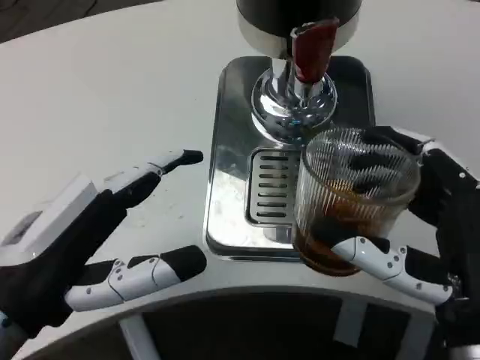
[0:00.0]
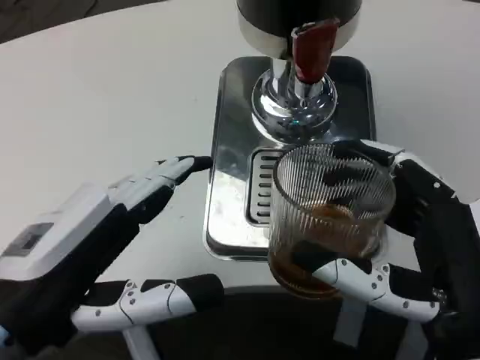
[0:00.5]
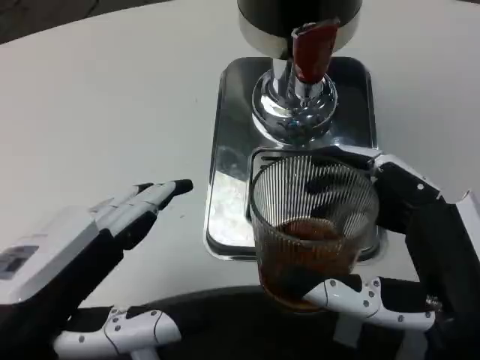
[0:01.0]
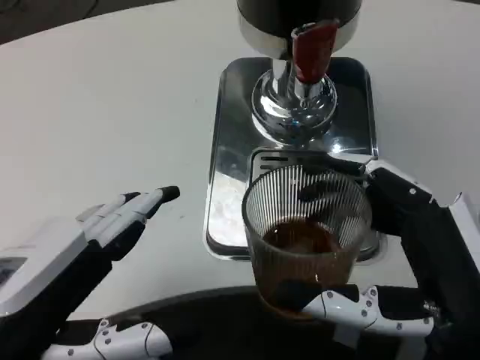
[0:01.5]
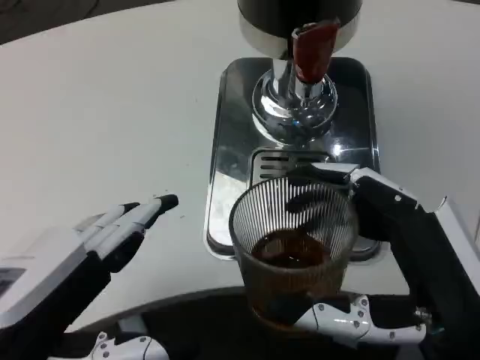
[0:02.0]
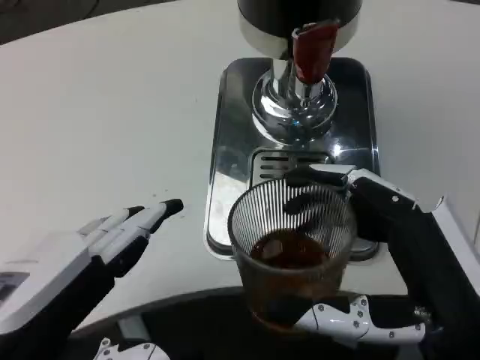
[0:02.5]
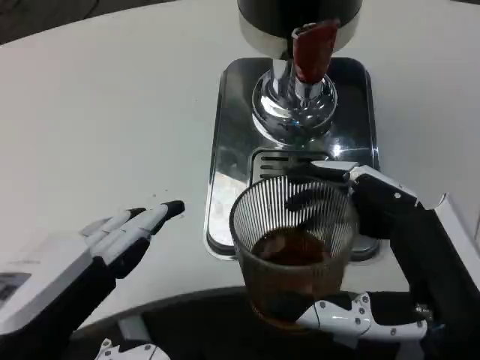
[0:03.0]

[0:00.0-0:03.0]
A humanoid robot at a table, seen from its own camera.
Task of the whole recording: Grasp the cup under the faucet to collect the drink, then remove the cup.
0:01.5 to 0:03.0: Neither hand changes place.

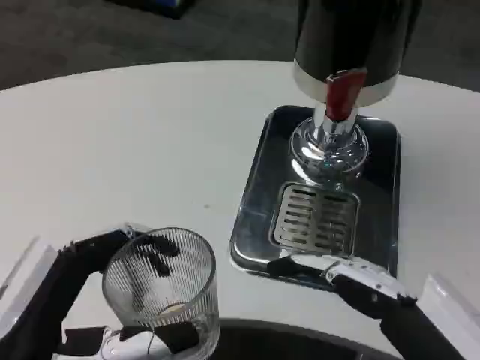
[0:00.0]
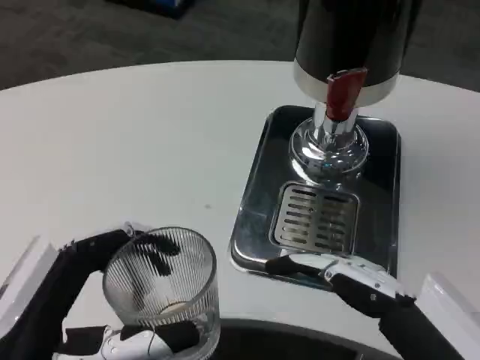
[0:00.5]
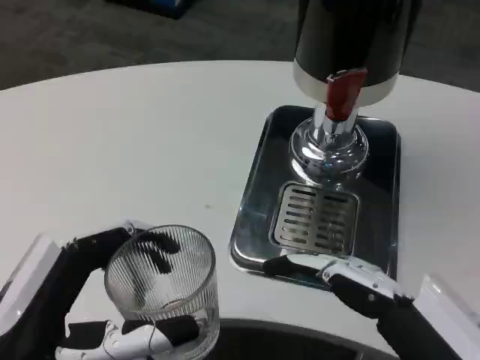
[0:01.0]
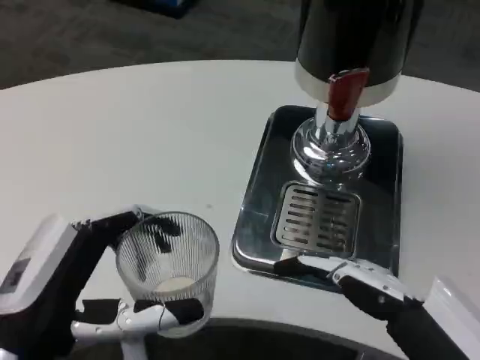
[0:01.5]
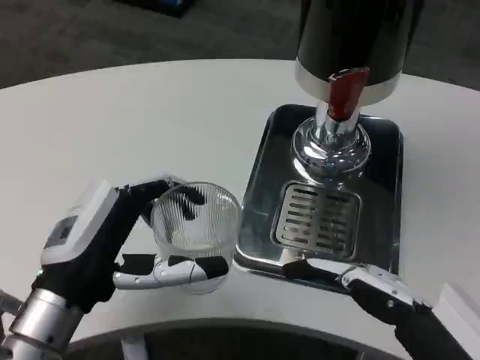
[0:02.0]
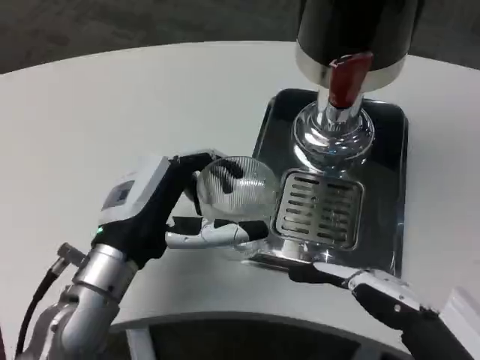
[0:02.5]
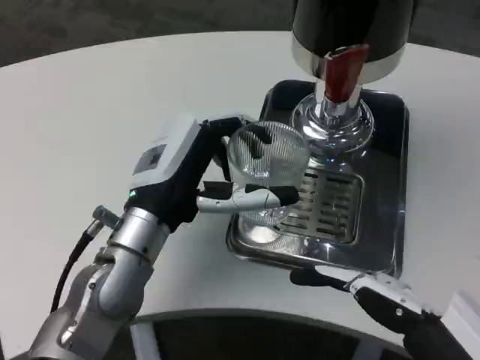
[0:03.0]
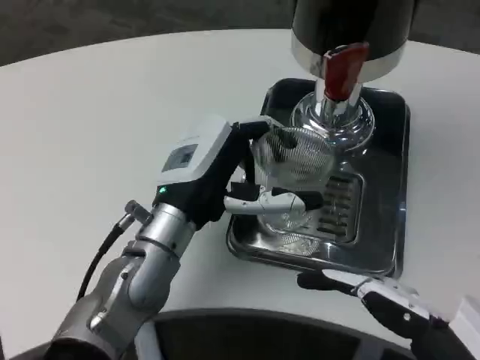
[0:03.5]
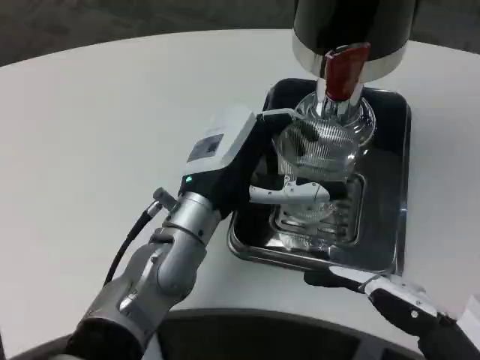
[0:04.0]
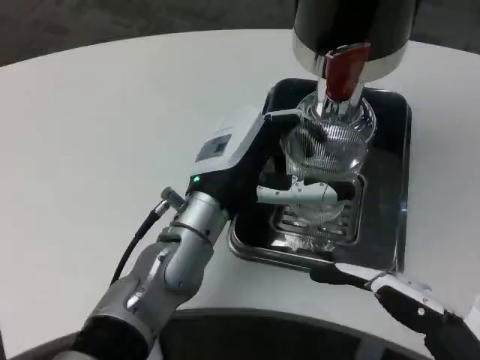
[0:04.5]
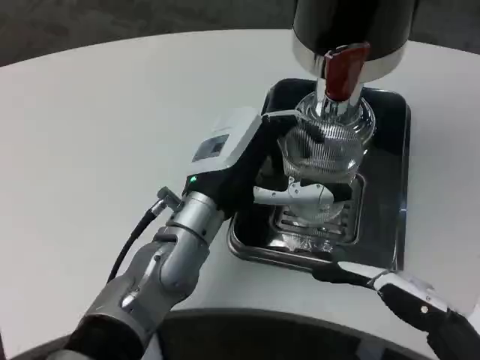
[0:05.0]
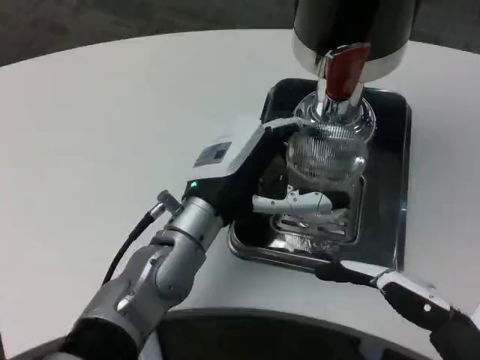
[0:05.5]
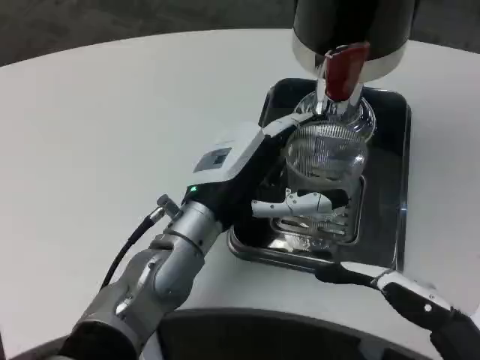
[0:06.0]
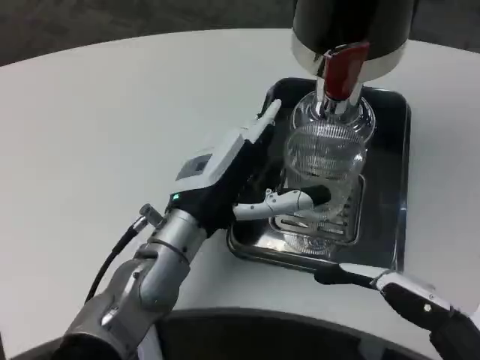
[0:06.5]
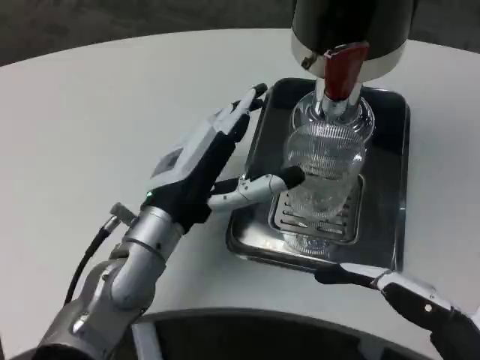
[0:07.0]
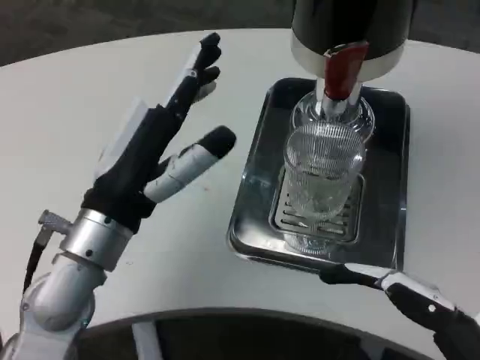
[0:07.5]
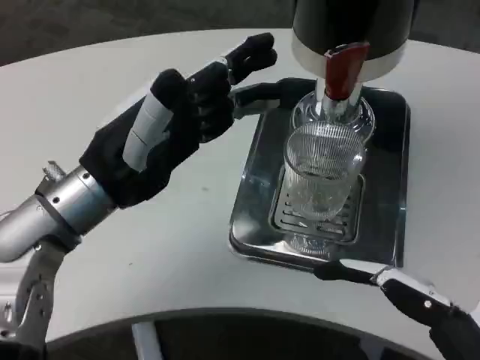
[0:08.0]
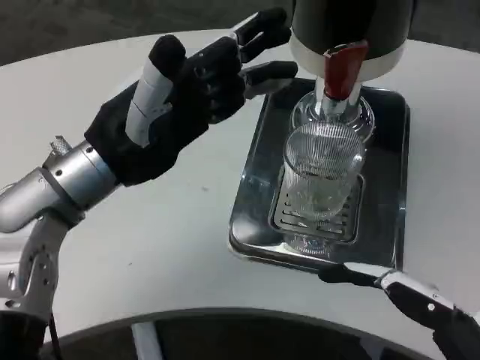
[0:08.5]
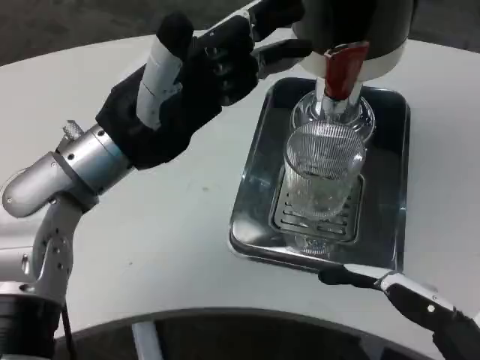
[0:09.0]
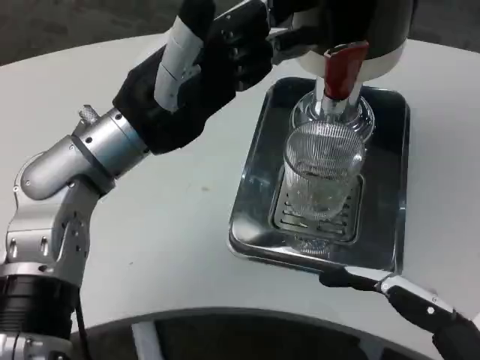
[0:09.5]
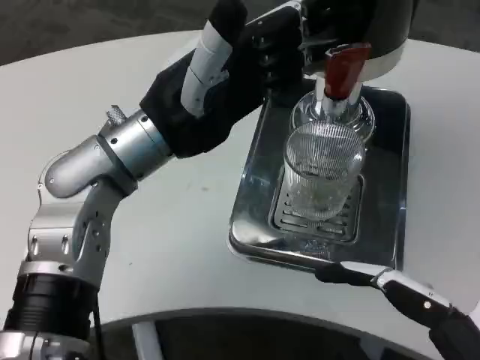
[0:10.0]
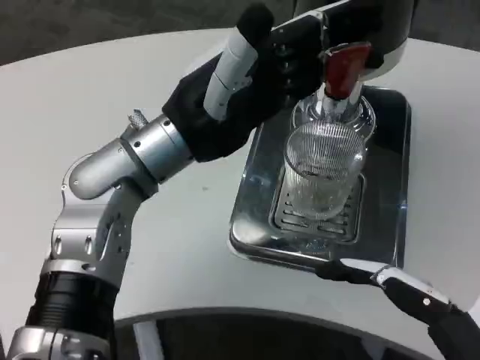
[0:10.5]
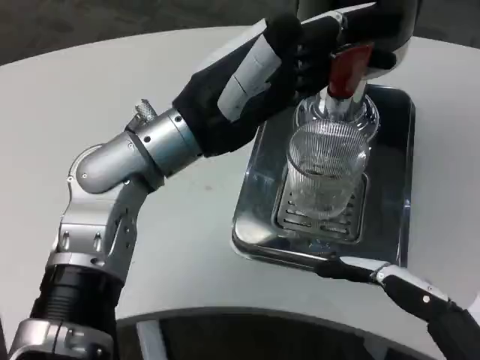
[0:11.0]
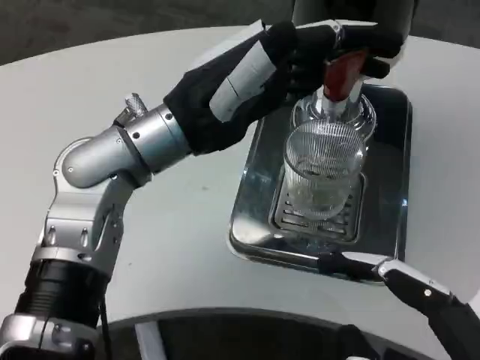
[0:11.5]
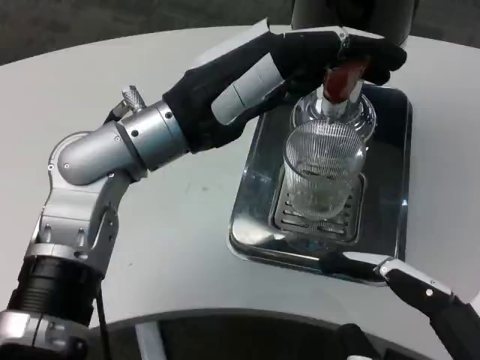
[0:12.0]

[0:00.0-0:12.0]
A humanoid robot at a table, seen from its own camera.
Task of the whole recording: Grasp the cup under the faucet to collect the drink, then remove the cup.
0:00.0 to 0:02.0: The left hand moves forward, roughly 10 cm.
0:02.0 to 0:04.0: The left hand shifts about 15 cm to the right and forward.
0:04.0 to 0:06.0: The hands move only a little.
0:06.0 to 0:08.0: The left hand heads to the left and upward, covering some 10 cm.
0:08.0 to 0:10.0: The left hand changes place by about 5 cm.

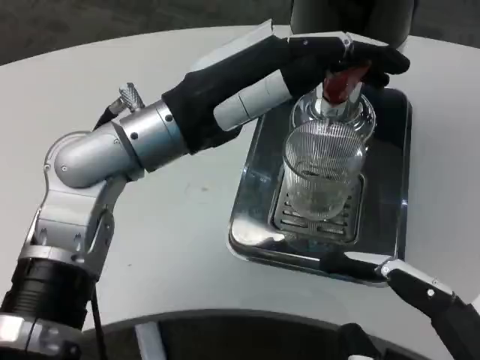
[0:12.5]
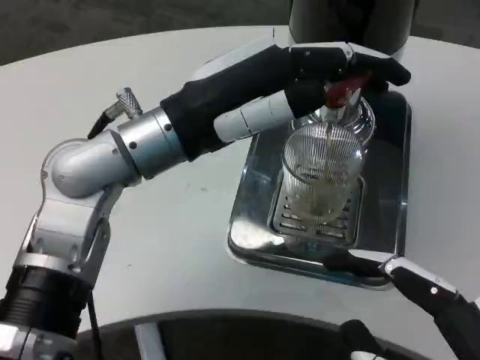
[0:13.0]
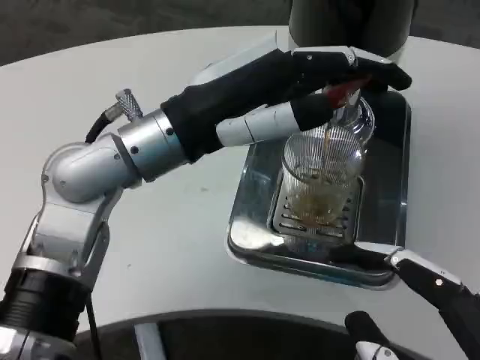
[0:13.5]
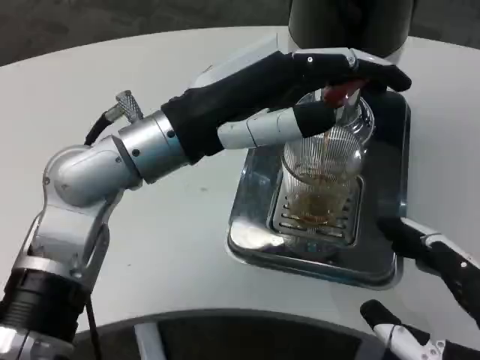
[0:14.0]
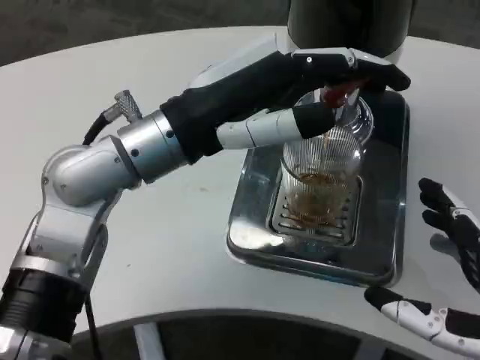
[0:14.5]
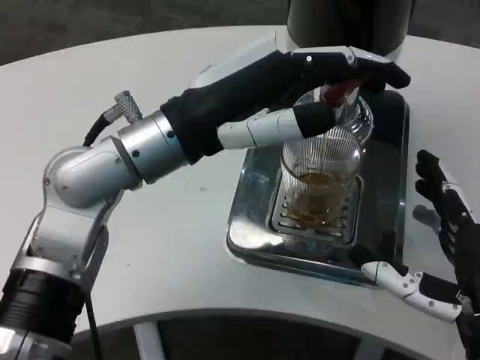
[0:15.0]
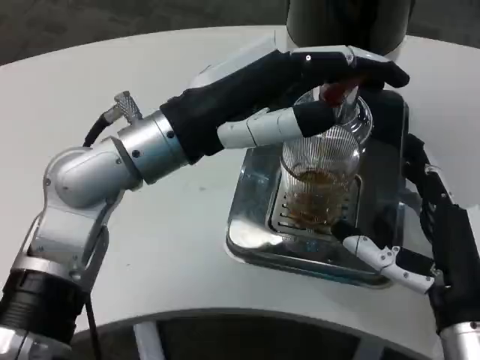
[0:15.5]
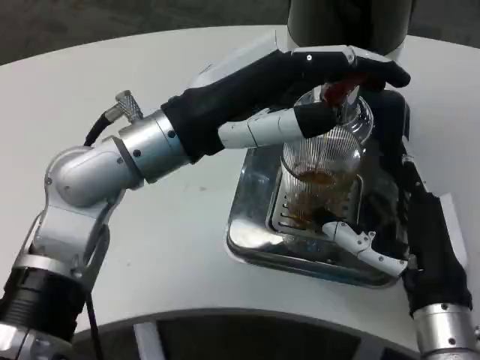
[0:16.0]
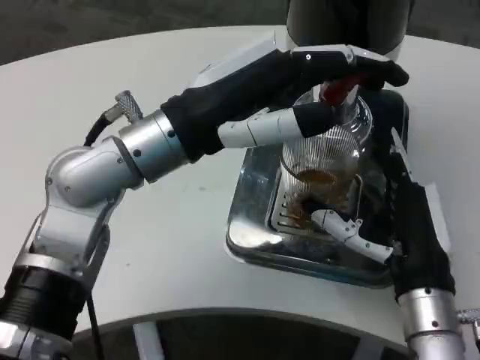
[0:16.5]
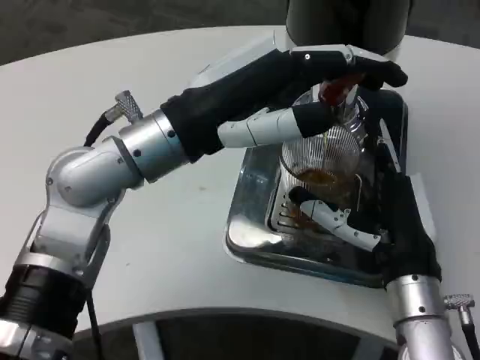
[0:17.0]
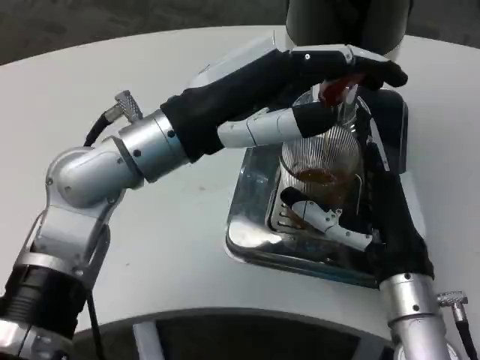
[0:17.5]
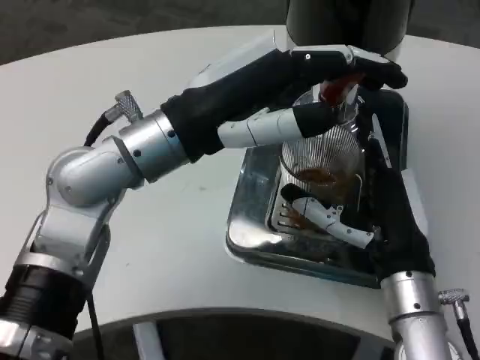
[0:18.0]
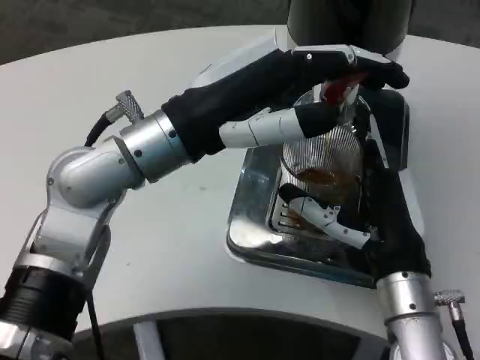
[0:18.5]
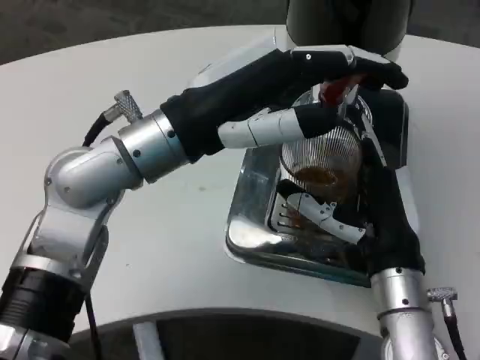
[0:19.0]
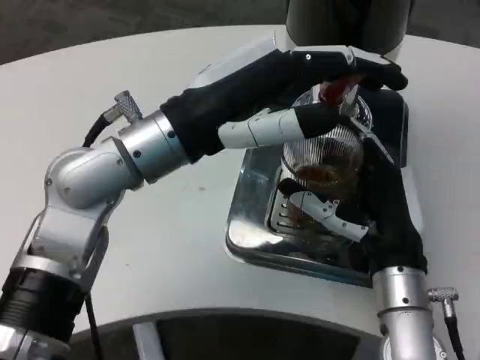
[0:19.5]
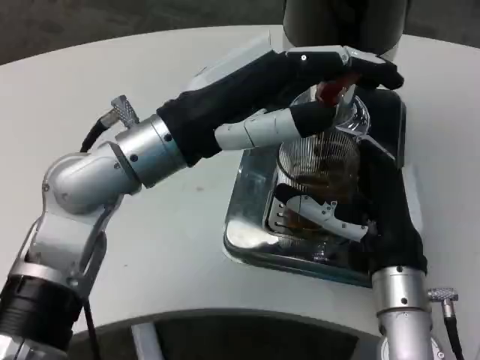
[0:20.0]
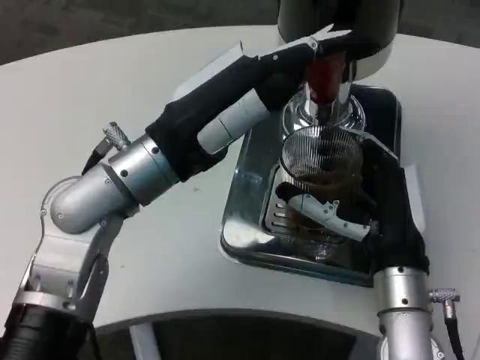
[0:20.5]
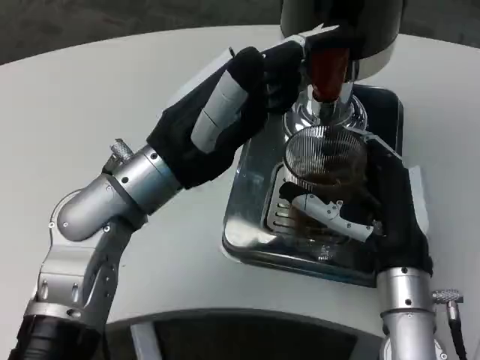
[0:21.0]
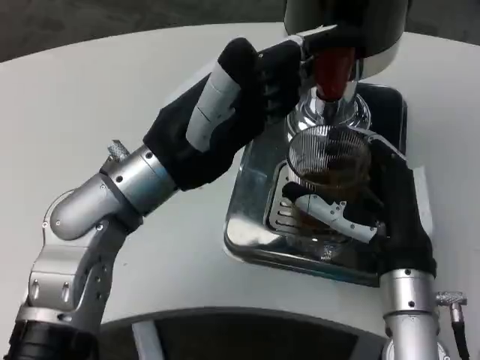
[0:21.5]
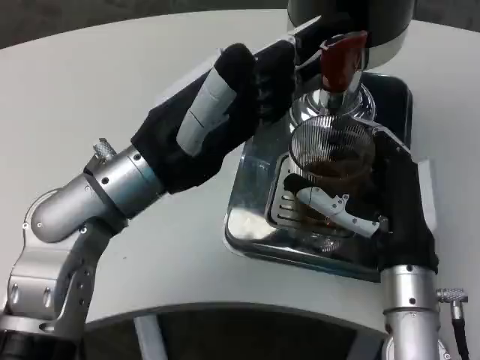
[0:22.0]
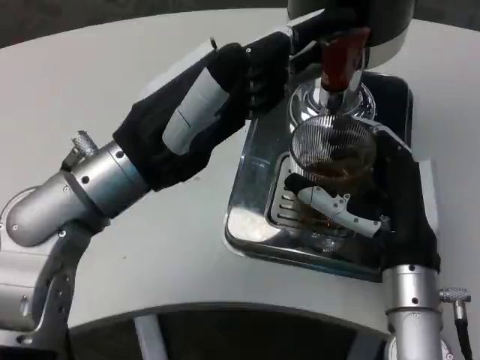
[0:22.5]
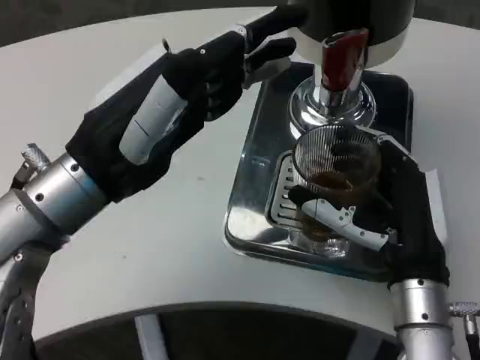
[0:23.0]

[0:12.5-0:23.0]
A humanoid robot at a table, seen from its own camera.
Task of the whole recording: Grasp the cup under the faucet to collect the drink, then remove the cup.
0:12.5 to 0:14.5: The right hand travels forward by roughly 5 cm.
0:14.5 to 0:16.5: The right hand travels forward and to the left by approximately 15 cm.
0:16.5 to 0:19.0: The hands move only a little.
0:21.0 to 0:23.0: The left hand shifts some 5 cm backward.
